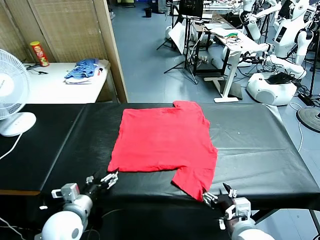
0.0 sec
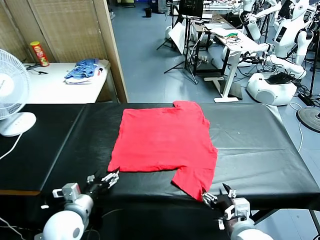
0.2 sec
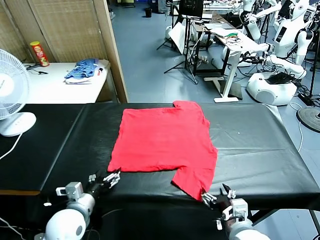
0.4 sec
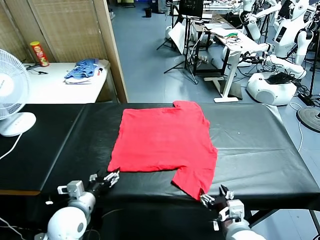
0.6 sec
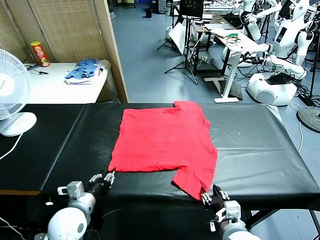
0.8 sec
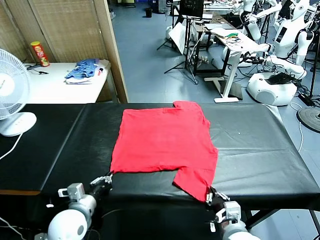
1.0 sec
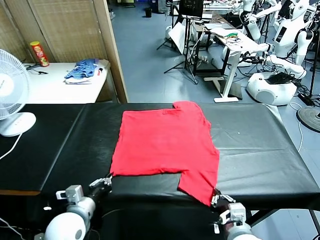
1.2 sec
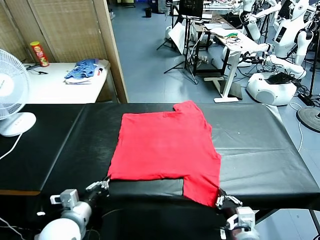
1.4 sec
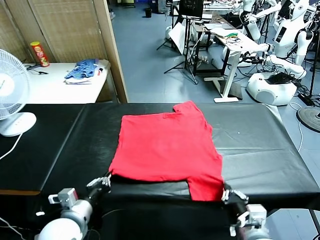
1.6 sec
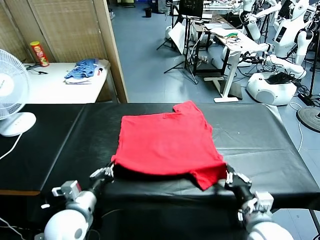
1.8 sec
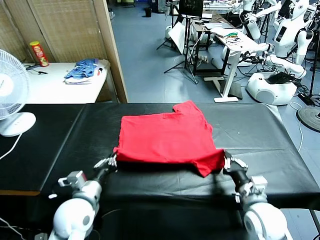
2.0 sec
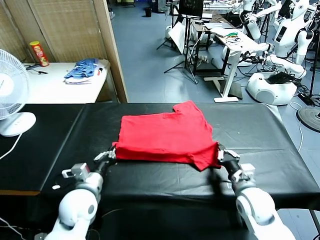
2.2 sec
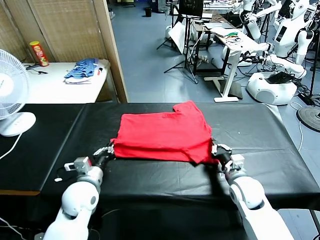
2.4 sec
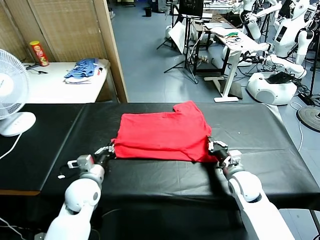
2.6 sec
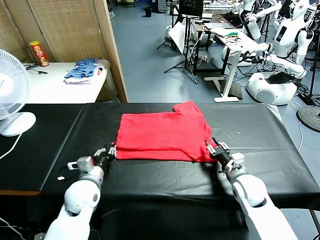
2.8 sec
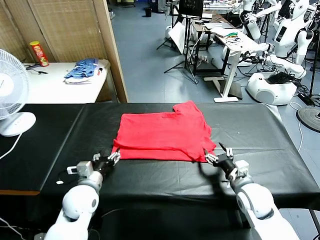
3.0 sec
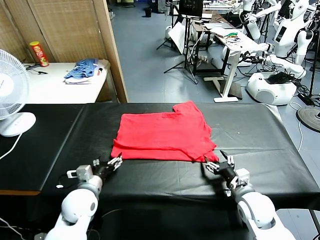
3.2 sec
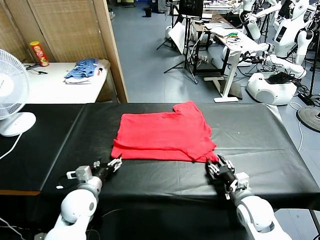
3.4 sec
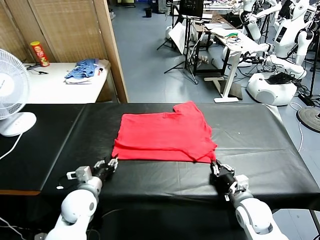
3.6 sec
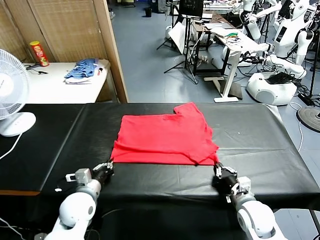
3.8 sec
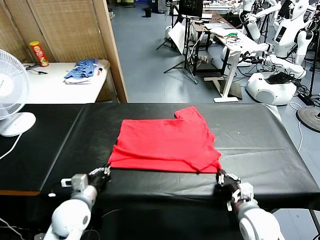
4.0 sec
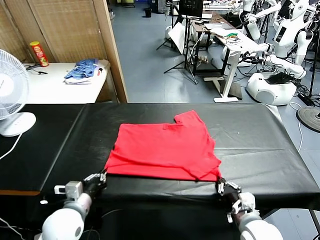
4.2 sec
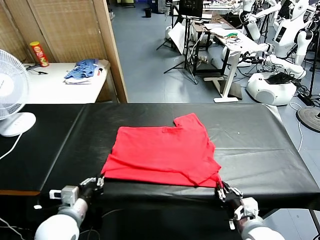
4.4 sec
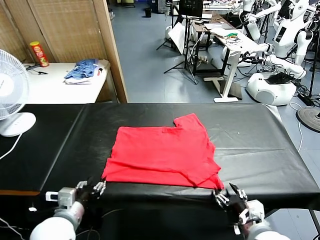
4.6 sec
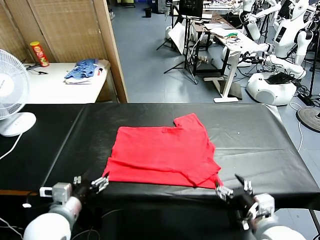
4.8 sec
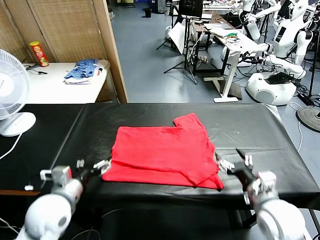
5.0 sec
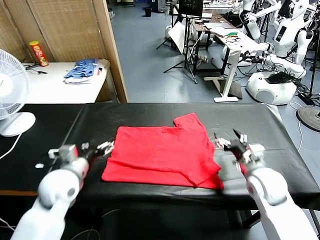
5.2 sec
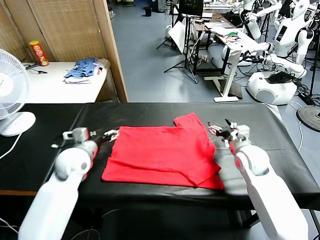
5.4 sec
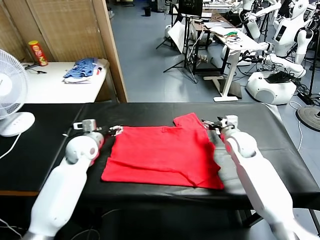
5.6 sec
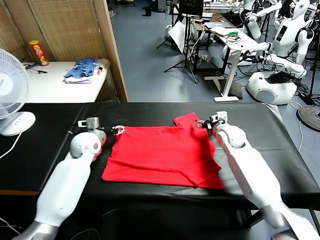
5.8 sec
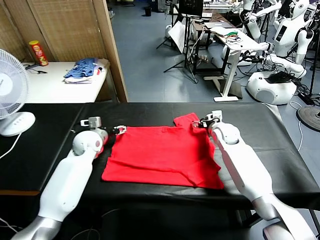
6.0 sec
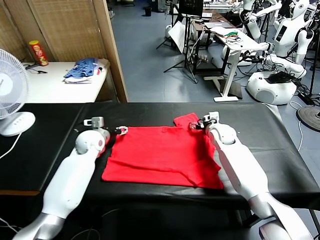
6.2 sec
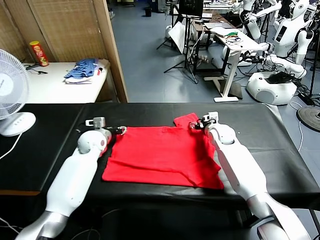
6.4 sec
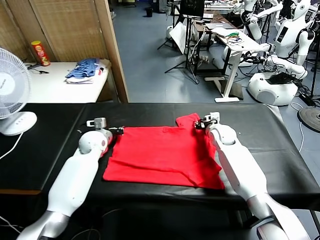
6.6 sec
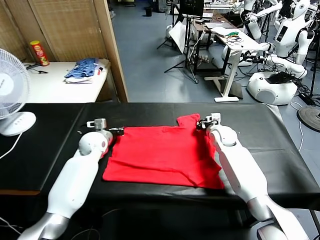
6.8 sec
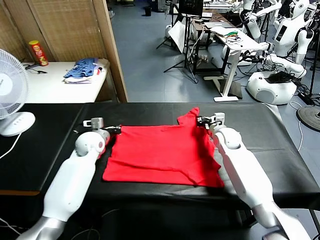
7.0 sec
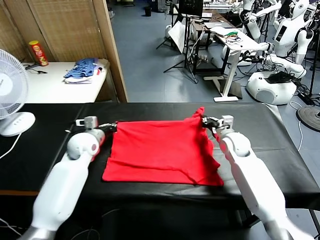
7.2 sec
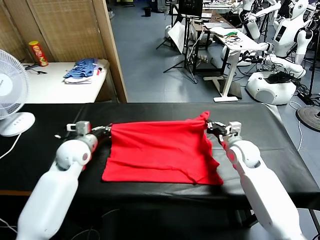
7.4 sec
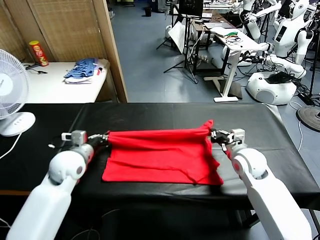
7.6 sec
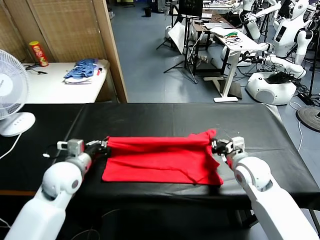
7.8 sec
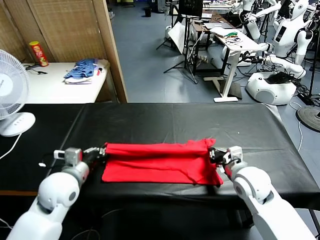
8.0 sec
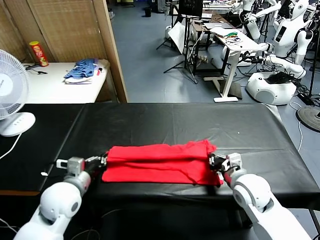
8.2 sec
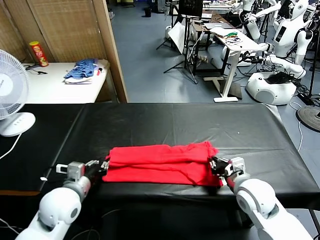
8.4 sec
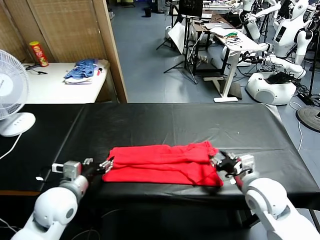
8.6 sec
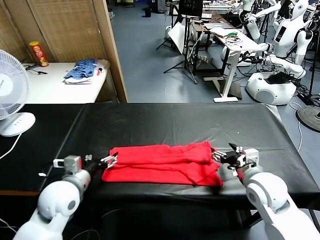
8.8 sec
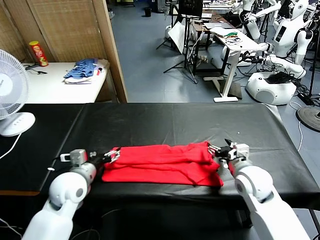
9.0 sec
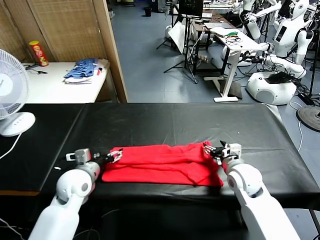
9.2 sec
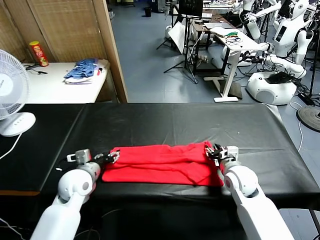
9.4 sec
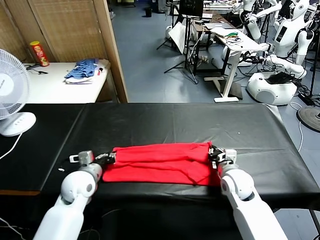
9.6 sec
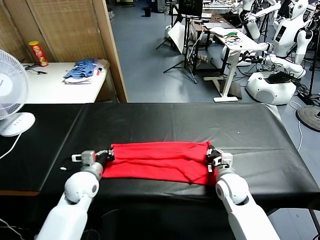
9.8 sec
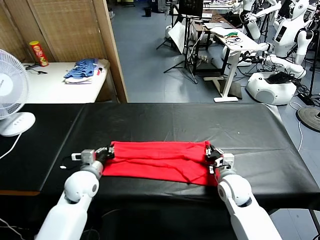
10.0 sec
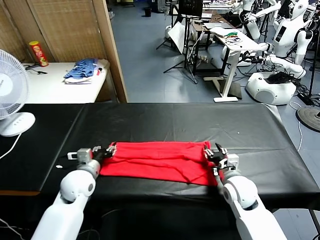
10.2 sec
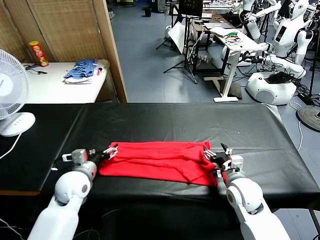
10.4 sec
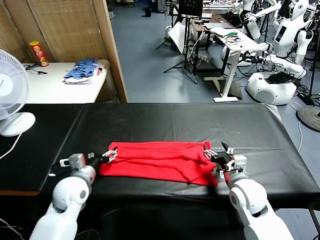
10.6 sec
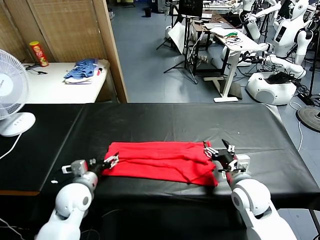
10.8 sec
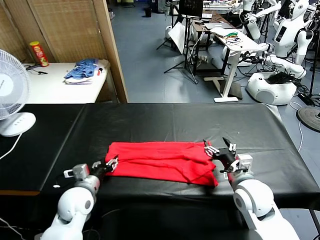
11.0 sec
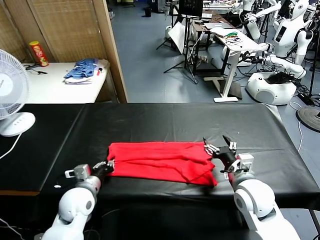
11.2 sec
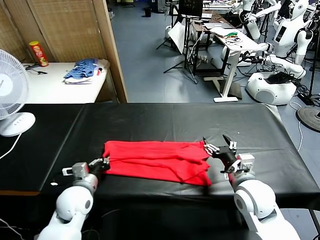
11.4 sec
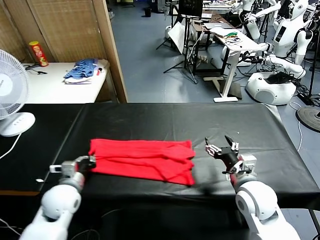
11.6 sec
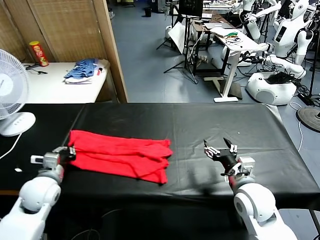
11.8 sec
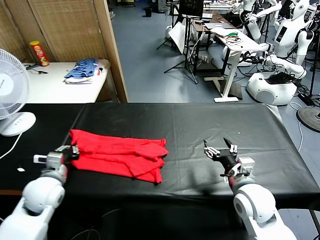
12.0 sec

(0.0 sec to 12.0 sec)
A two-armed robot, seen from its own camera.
Task of the whole recording: fold and organize the clothes.
Step, 0.0 sec - 1.0 sec: use both grippers simultaneously to clamp the lower edge of the clothing fabric.
Step, 1.2 sec - 2.8 sec: use both grippers to drag the lower edge of the fabric forward and fold it over the upper edge.
Step, 3.0 sec - 4.6 sec: Drag the clothes downward with both gripper.
Step, 4.8 sec - 6.6 sec: use both grippers simultaneously to clamp the upper edge of the clothing fabric.
Step, 6.8 sec - 8.6 sec: use both grippers to drag the upper edge of the fabric backward and fold it over the lower edge.
Step, 8.8 sec - 11.2 sec: use the left gripper to clamp the left edge of the fabric.
1.6 sec - 3.0 sec: The left gripper moves forward, some 10 cm, and opens up; the right gripper is displaced forward and downward by about 10 cm, and opens its fingers.
3.0 sec - 4.4 sec: The left gripper heads backward, covering about 10 cm, and closes its fingers; the right gripper travels backward and upward by approximately 15 cm, and closes and opens again.
4.4 sec - 6.0 sec: The two grippers go approximately 35 cm forward. The left gripper opens its fingers.
6.0 sec - 7.6 sec: Both grippers move backward, approximately 15 cm. The left gripper closes its fingers. Meanwhile the right gripper closes its fingers.
7.6 sec - 9.0 sec: The left gripper shifts some 5 cm backward, and opens its fingers. Meanwhile the right gripper moves approximately 10 cm backward and comes back, and opens its fingers.
9.0 sec - 10.4 sec: The right gripper closes, then opens again. Meanwhile the left gripper closes, then opens again.
10.4 sec - 12.0 sec: The right gripper shifts by some 5 cm. The left gripper moves to the left, about 5 cm, and closes.

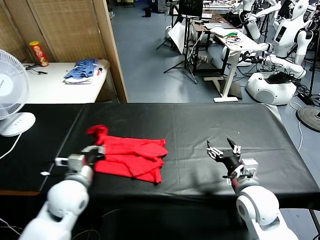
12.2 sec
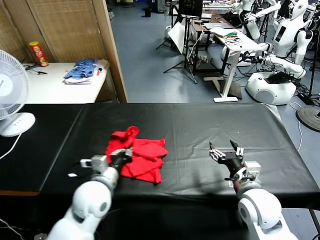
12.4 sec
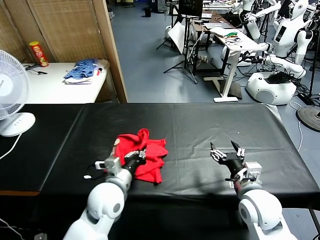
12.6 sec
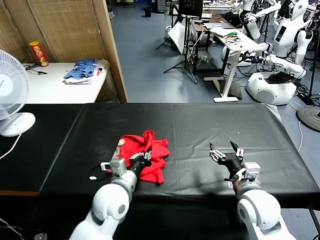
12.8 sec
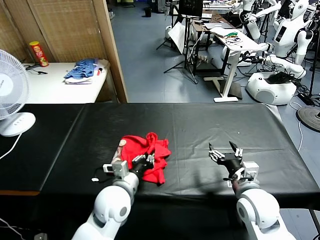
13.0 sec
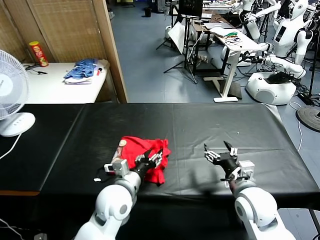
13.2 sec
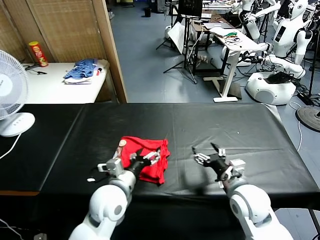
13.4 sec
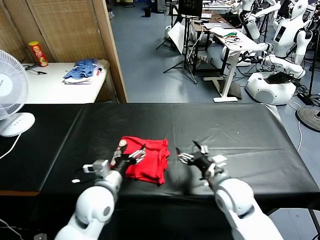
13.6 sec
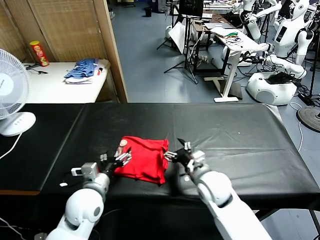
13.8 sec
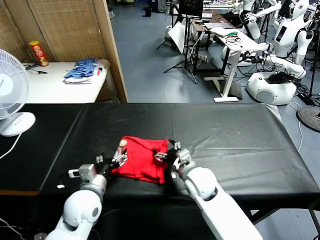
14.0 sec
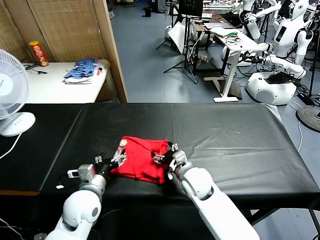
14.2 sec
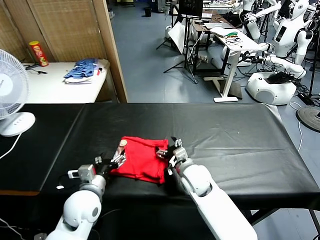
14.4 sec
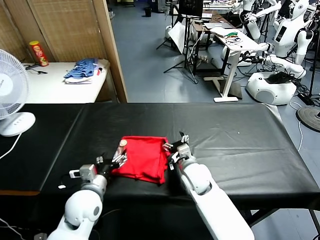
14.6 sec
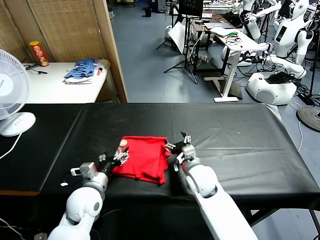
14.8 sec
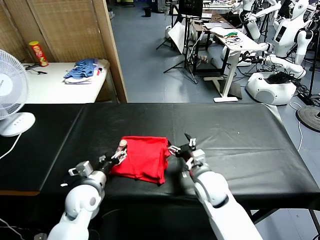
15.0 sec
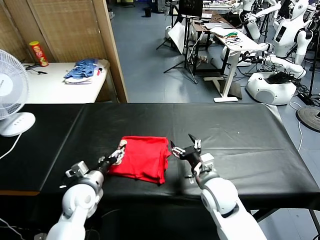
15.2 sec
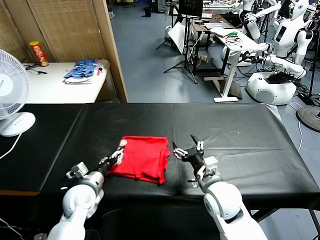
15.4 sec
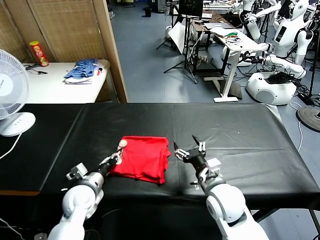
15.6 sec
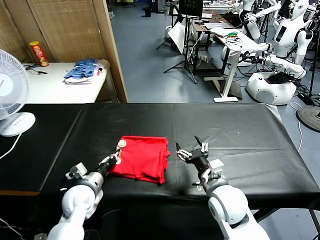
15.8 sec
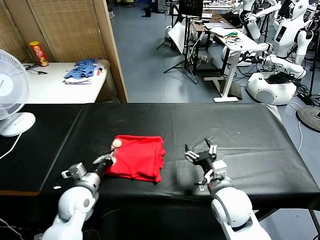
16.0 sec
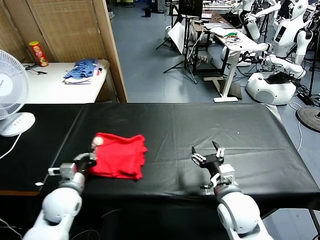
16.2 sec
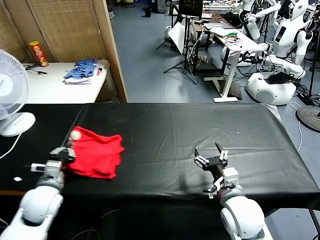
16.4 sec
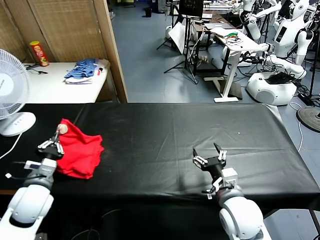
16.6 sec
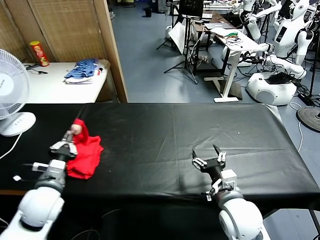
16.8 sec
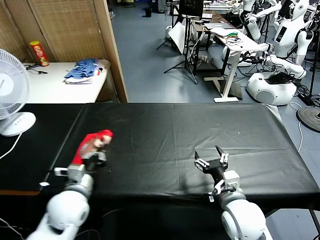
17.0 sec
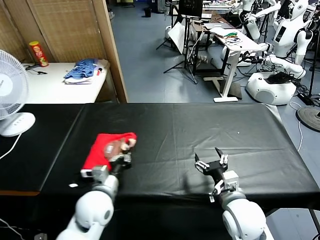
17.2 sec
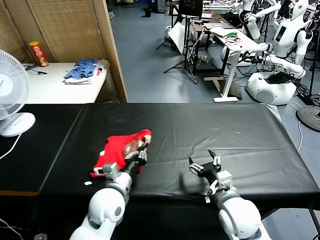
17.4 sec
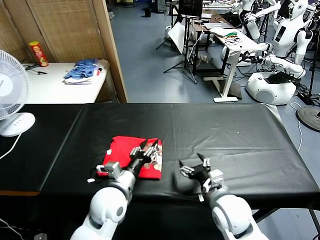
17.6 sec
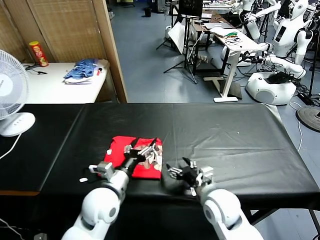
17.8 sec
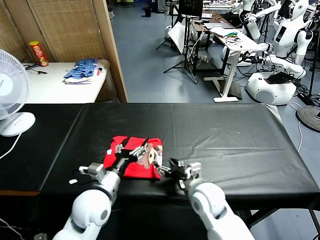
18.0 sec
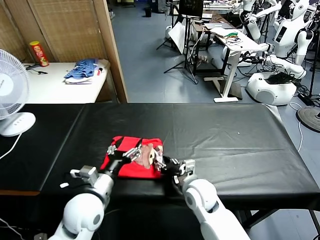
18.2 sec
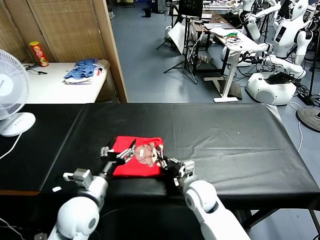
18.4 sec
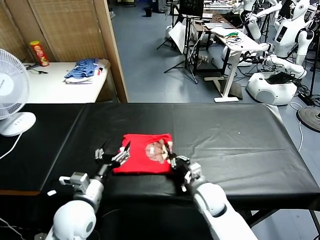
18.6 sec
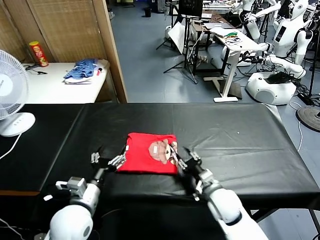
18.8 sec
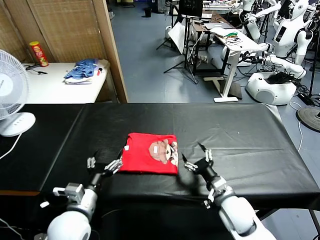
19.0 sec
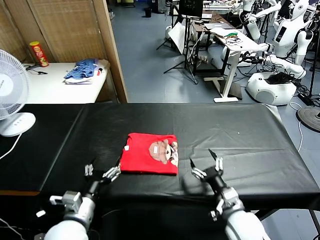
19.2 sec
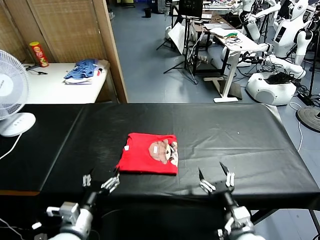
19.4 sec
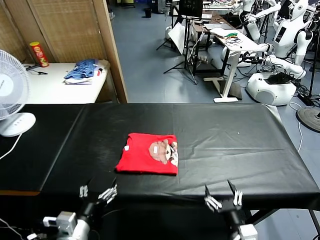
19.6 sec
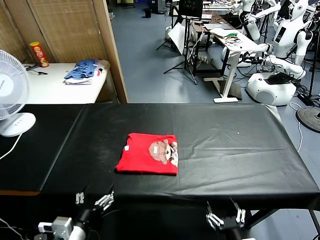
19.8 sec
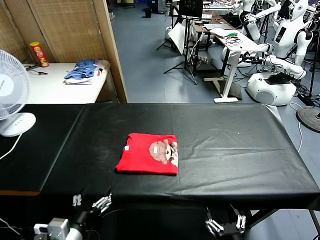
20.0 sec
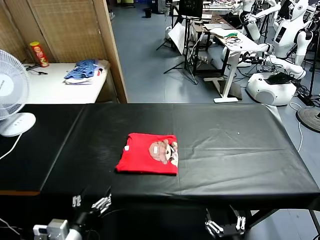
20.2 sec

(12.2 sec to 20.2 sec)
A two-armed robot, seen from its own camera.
Task of the whole recording: fold and organize the clothes.
Step, 12.2 sec - 13.4 sec: use the left gripper to drag the left edge of the fabric to the left and folds it over the right edge.
Step, 13.6 sec - 17.6 sec: Flip the folded clothes over with left gripper.
Step, 17.8 sec - 18.8 sec: Drag the clothes to the center of the table.
12.2 sec - 13.8 sec: The right gripper is displaced to the left and forward by roughly 15 cm, while the left gripper opens up.
13.8 sec - 15.4 sec: The right gripper goes roughly 5 cm backward, while the left gripper goes some 5 cm downward and to the left.
15.4 sec - 17.0 sec: The right gripper heads backward, covering some 5 cm. Meanwhile the left gripper travels upward by approximately 5 cm, goes to the left and returns, roughly 10 cm each way, and closes its fingers.
17.0 sec - 18.6 sec: The left gripper opens up, while the right gripper moves downward, forward and to the left, roughly 15 cm, and closes up.
18.6 sec - 20.2 sec: The left gripper is displaced backward by approximately 10 cm; the right gripper goes roughly 25 cm backward, and opens up.

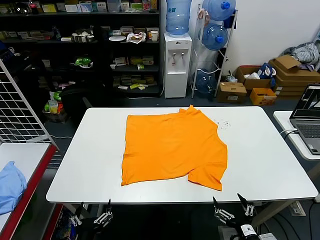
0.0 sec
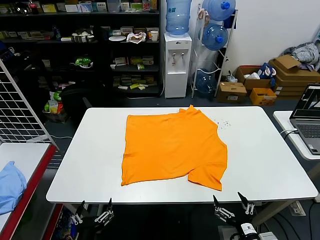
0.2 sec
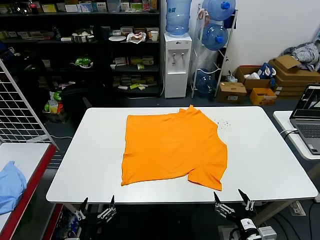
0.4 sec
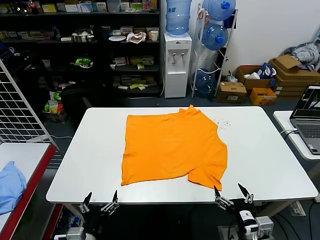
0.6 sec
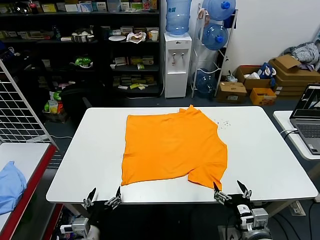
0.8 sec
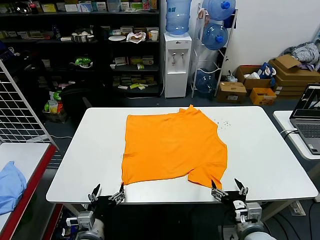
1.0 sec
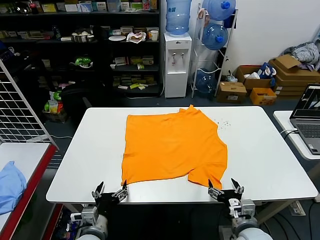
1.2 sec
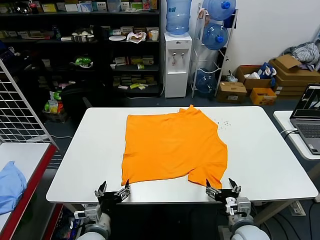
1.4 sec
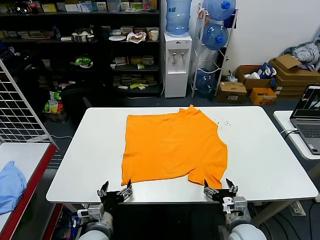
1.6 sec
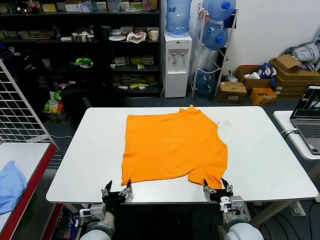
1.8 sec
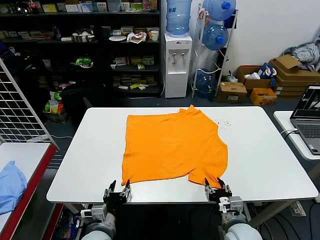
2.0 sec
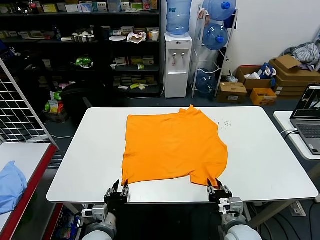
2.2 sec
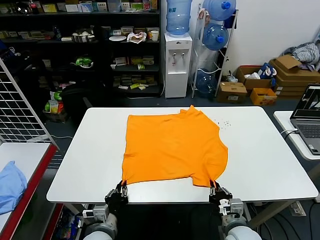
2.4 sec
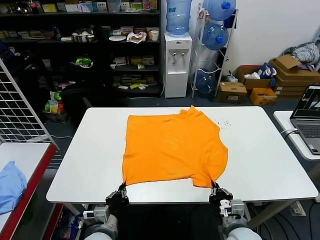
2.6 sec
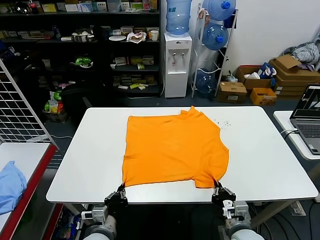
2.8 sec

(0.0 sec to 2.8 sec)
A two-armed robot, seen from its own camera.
Task of the whole recording: fold and organize the clothes.
Step, 0.0 sec - 2.4 sec: use both grippers simultaneously to clamp the lower edge of the clothing fabric.
1.4 sec - 2.8 sec: The left gripper closes its fingers, while the right gripper closes its fingers.
